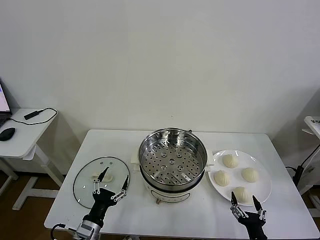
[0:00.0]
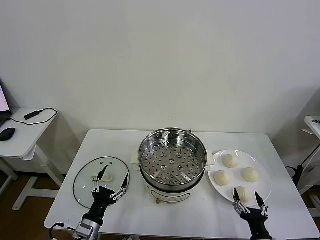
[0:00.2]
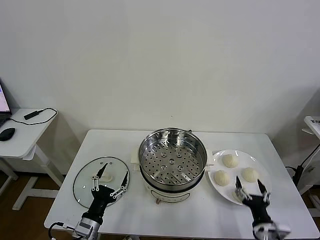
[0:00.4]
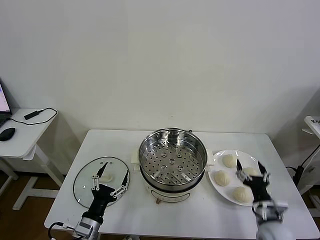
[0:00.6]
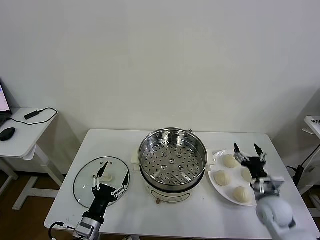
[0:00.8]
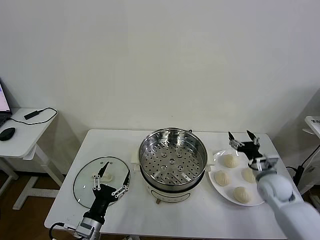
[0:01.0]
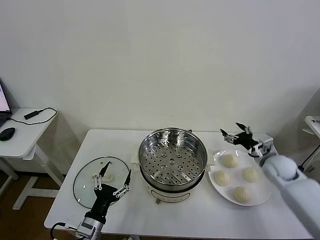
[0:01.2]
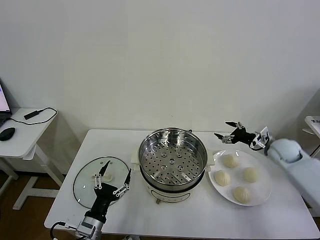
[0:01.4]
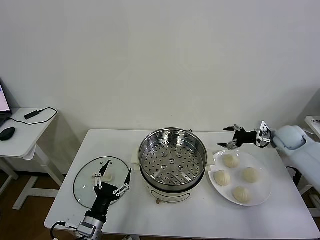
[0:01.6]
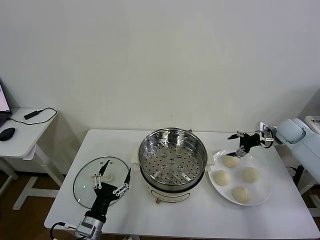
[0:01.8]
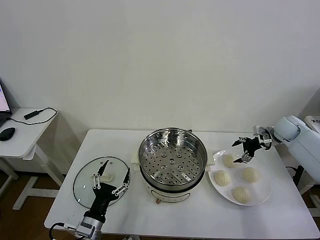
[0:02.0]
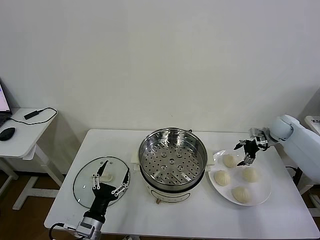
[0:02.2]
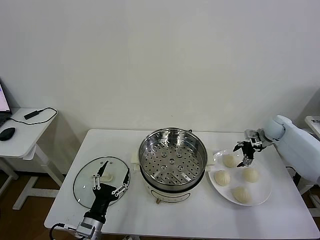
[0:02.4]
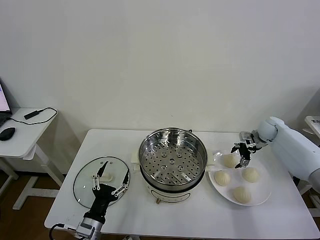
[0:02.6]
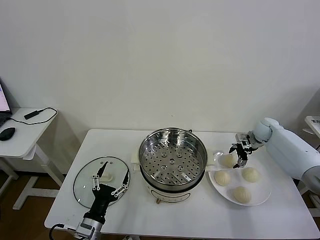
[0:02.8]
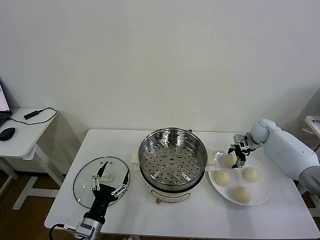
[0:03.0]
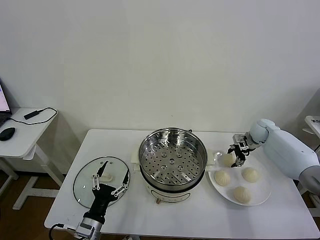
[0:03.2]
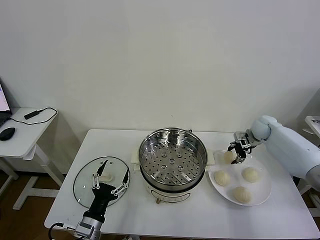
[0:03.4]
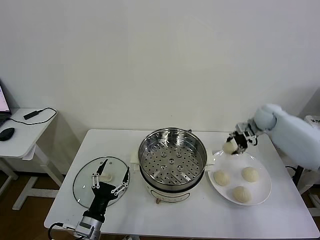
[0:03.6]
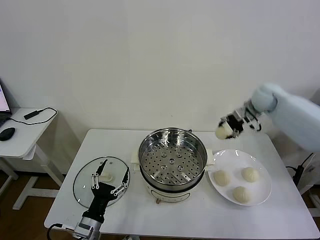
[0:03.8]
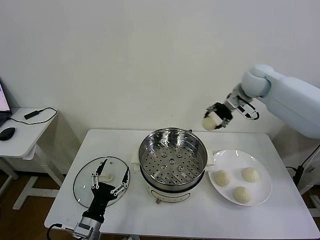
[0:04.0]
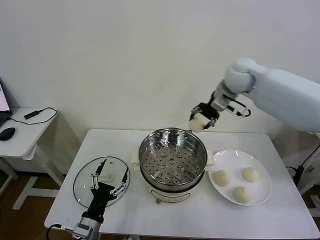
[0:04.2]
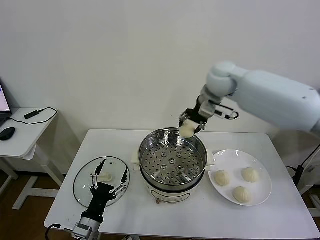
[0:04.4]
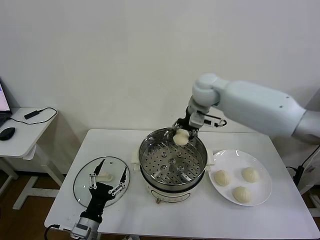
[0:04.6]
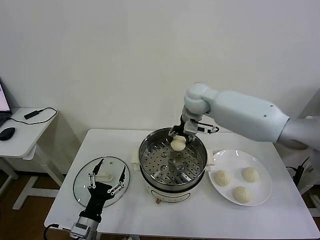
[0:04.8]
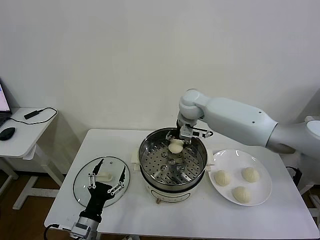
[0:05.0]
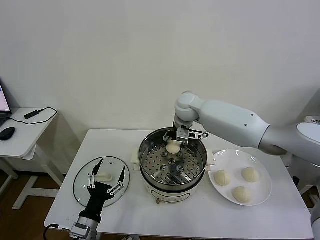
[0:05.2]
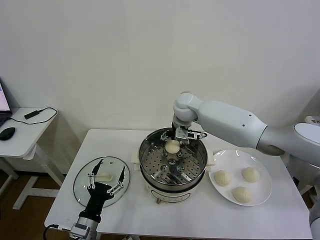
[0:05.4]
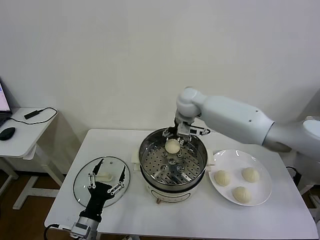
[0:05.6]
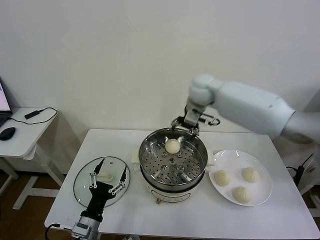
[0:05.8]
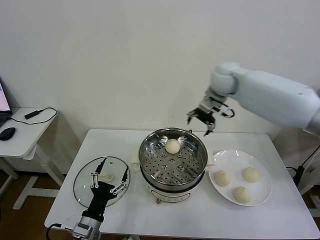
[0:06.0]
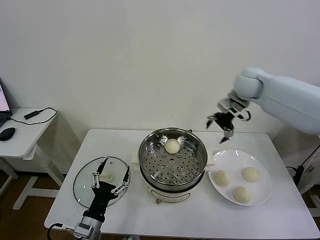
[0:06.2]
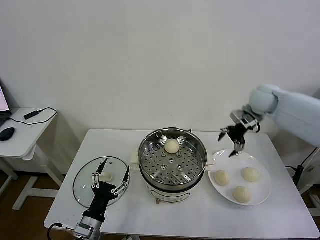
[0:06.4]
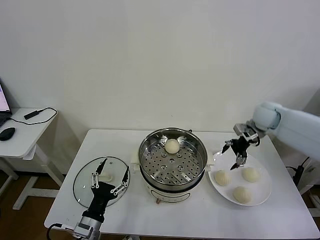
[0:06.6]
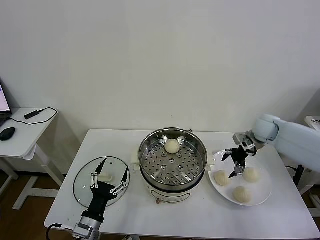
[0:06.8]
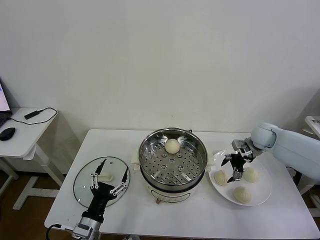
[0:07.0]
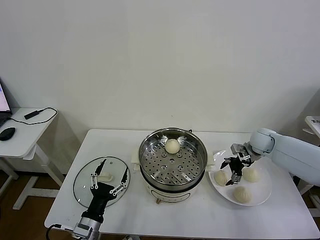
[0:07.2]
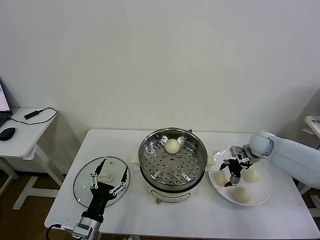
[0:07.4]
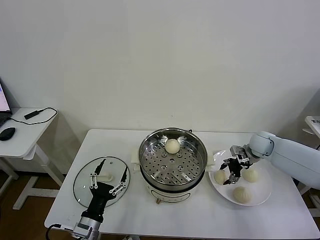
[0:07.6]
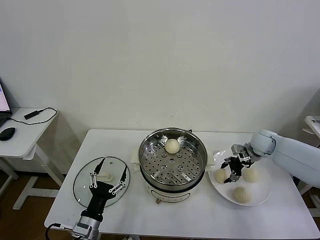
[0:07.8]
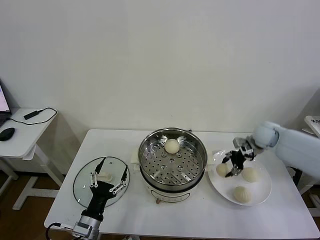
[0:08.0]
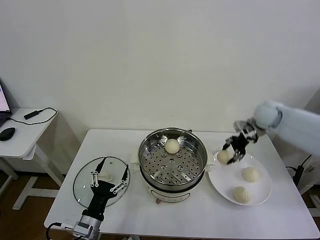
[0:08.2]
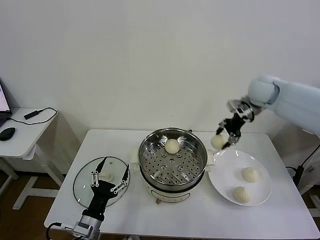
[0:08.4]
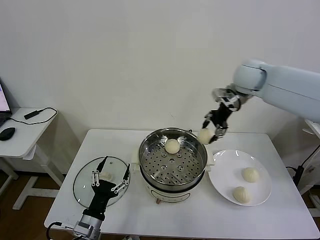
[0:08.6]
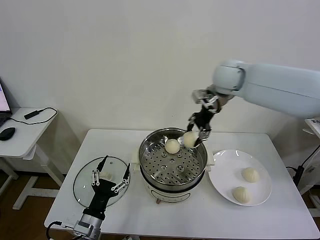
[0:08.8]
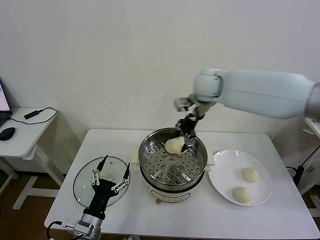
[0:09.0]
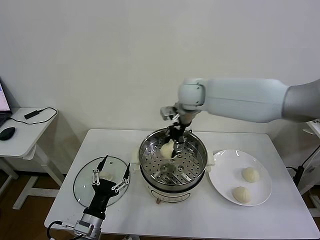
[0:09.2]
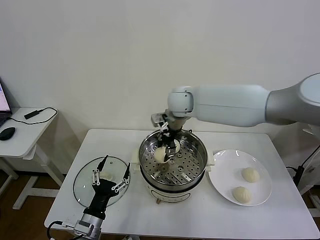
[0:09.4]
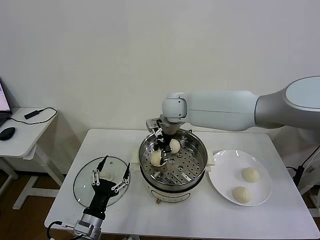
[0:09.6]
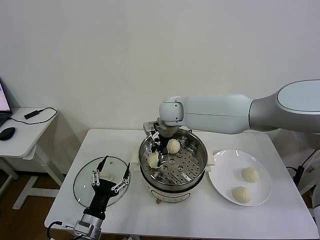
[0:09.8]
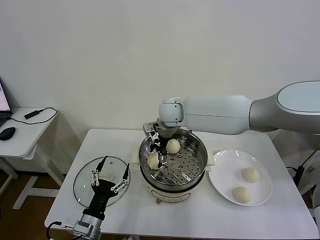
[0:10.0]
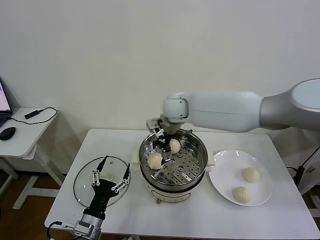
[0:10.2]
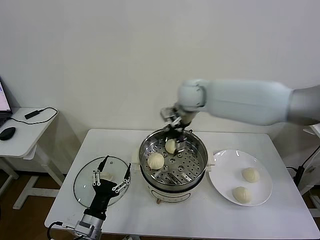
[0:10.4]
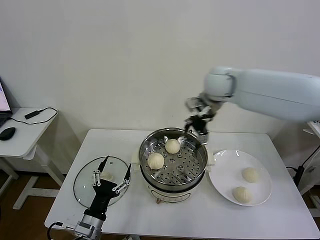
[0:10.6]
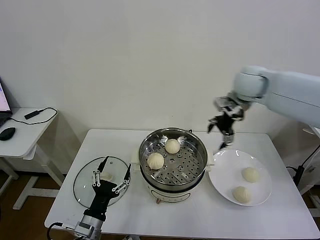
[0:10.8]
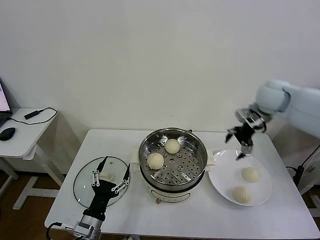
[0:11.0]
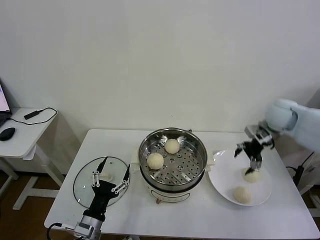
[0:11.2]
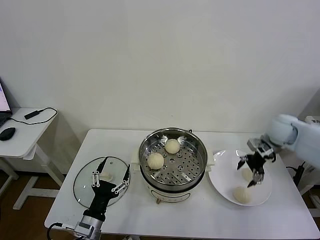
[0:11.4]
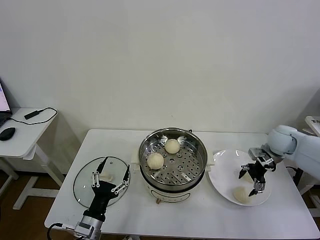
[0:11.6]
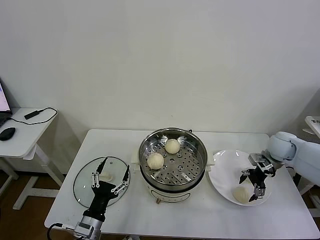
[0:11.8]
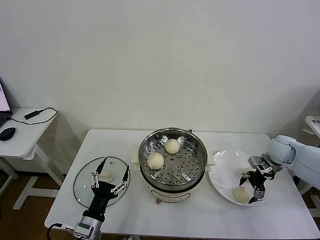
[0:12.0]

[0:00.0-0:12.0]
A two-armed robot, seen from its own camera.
Task of the whole recording: take steamed baozi put them in steamer then cover it.
Step, 0:00.0 to 0:03.2: Grasp the baozi in the plate with right gripper.
Step, 0:03.4 to 0:05.4: Place the baozi on the steamer with right gripper.
Step, 0:05.6 to 0:07.8: Grasp the baozi in the plate with right gripper.
Step, 0:08.0 to 0:10.0: Place the baozi on the steamer with right gripper.
0:01.6 to 0:03.0: The right gripper moves forward, downward and to the left, approximately 10 cm.
0:03.0 to 0:04.4: The right gripper moves to the left and upward, approximately 35 cm, and closes its fingers.
0:04.4 to 0:06.0: The right gripper travels to the right by about 10 cm, and opens up.
0:06.0 to 0:07.6: The right gripper heads downward and to the right, covering some 30 cm, and closes up.
0:07.6 to 0:09.0: The right gripper travels to the left and upward by some 35 cm.
0:09.0 to 0:10.4: The right gripper goes to the left and returns, roughly 10 cm each way, and opens its fingers.
0:10.4 to 0:12.0: The right gripper goes roughly 35 cm to the right and downward.

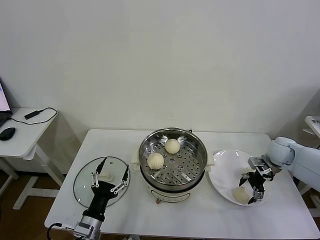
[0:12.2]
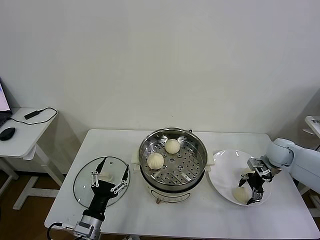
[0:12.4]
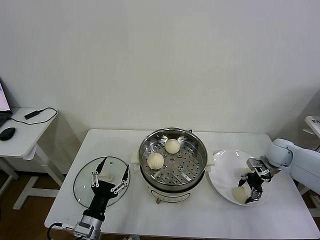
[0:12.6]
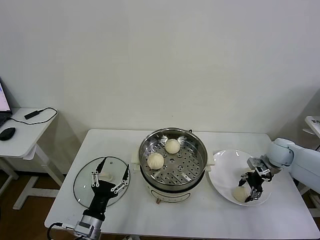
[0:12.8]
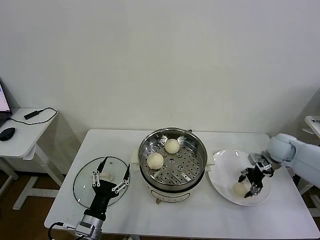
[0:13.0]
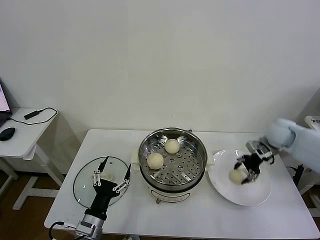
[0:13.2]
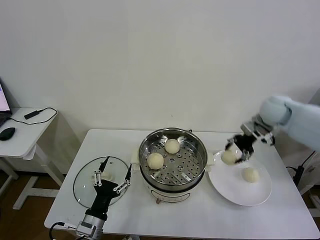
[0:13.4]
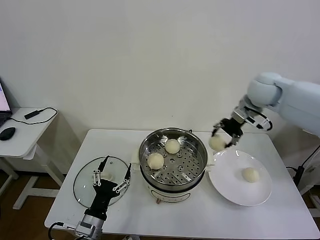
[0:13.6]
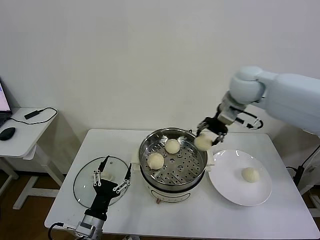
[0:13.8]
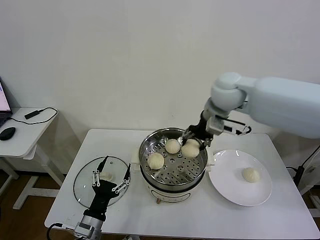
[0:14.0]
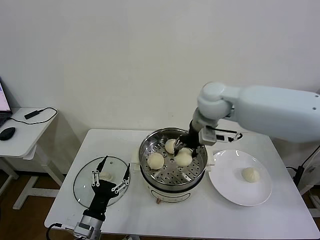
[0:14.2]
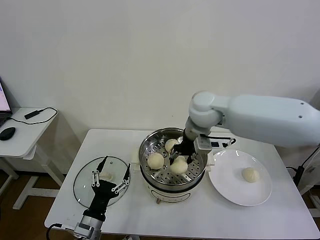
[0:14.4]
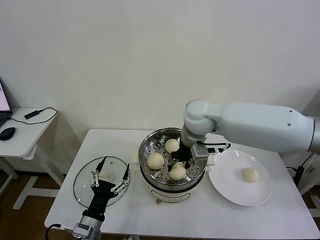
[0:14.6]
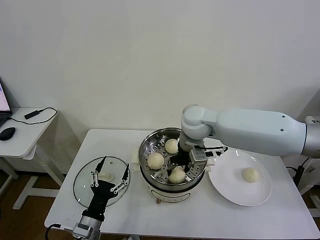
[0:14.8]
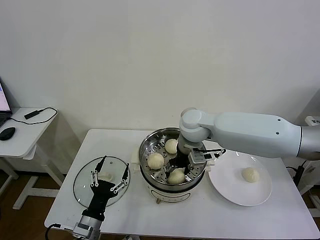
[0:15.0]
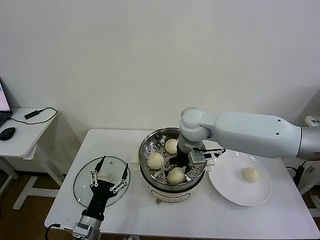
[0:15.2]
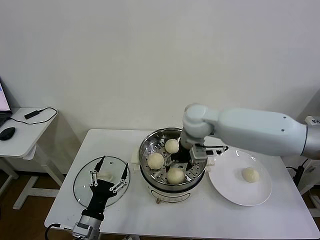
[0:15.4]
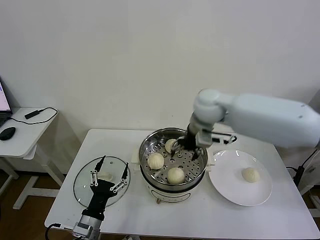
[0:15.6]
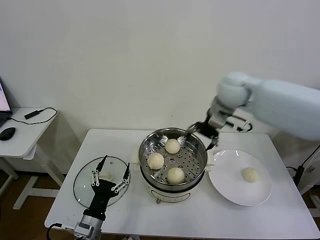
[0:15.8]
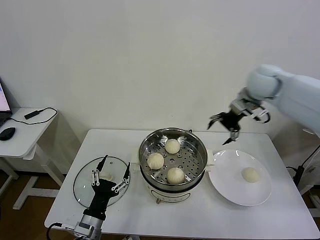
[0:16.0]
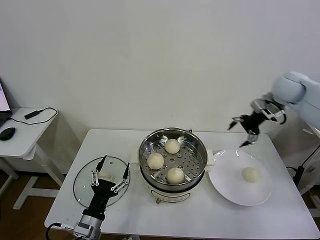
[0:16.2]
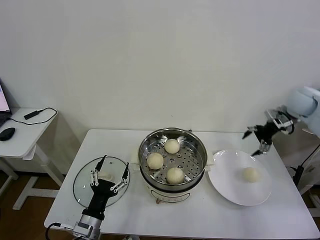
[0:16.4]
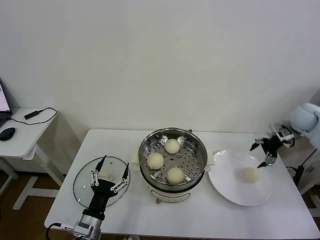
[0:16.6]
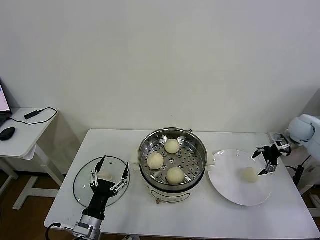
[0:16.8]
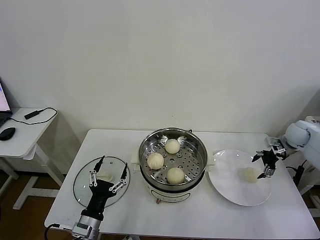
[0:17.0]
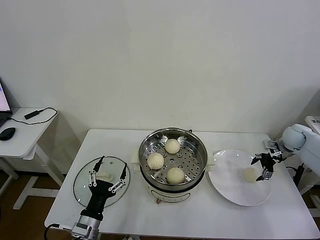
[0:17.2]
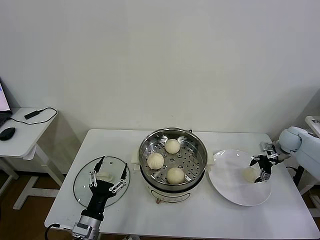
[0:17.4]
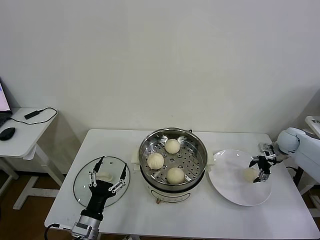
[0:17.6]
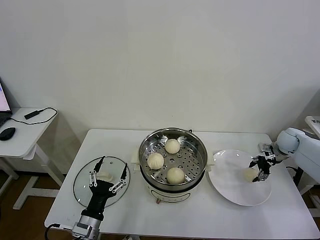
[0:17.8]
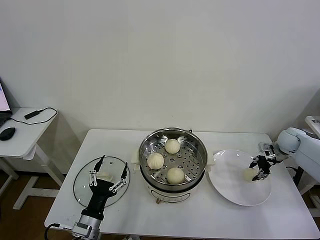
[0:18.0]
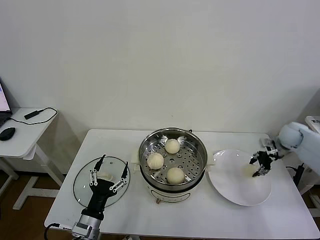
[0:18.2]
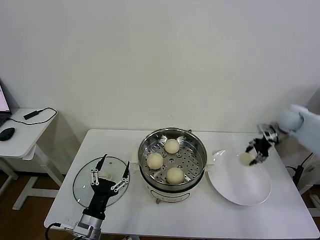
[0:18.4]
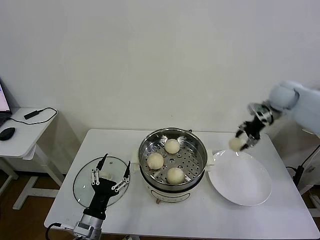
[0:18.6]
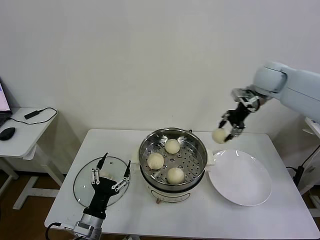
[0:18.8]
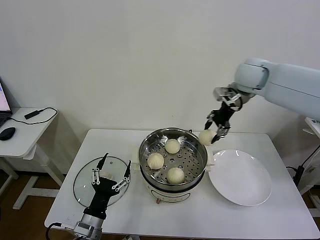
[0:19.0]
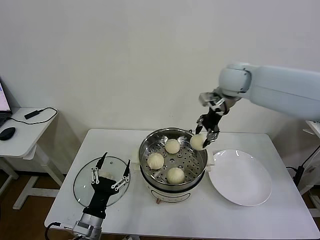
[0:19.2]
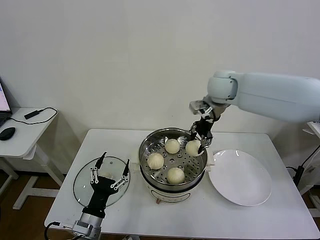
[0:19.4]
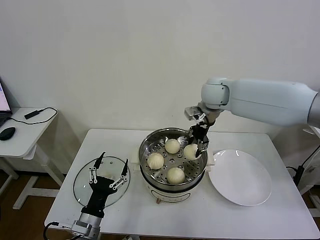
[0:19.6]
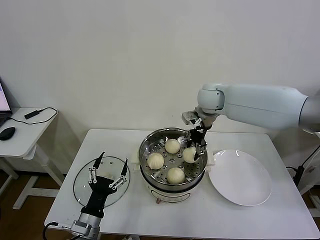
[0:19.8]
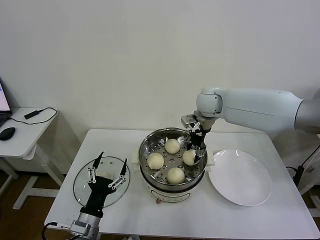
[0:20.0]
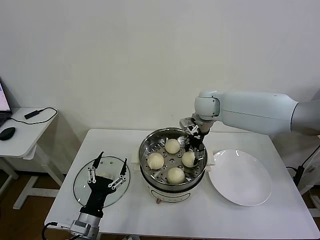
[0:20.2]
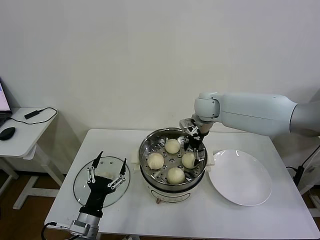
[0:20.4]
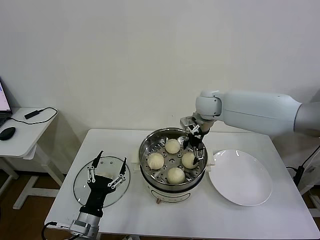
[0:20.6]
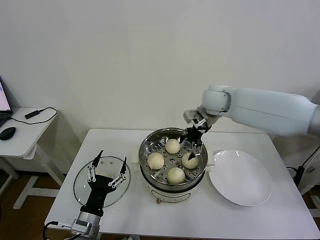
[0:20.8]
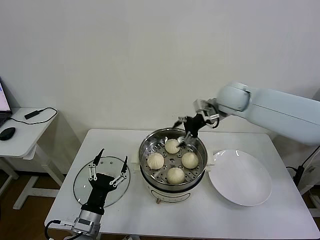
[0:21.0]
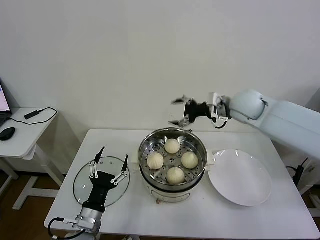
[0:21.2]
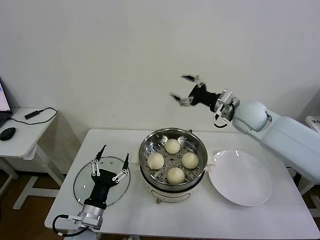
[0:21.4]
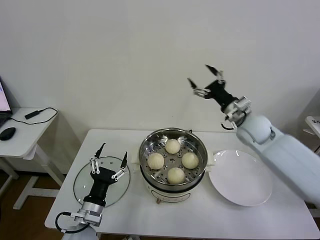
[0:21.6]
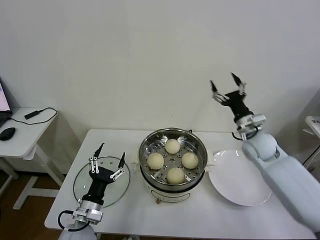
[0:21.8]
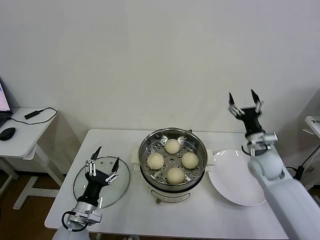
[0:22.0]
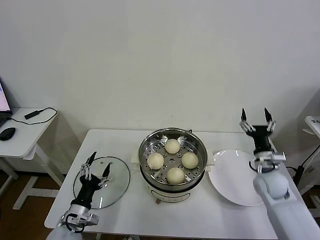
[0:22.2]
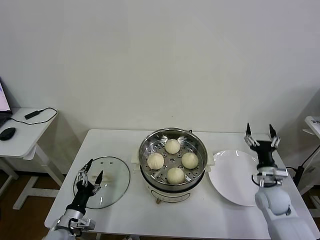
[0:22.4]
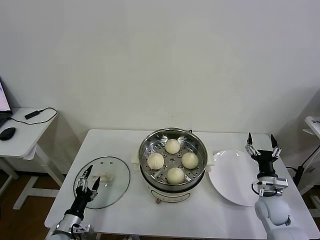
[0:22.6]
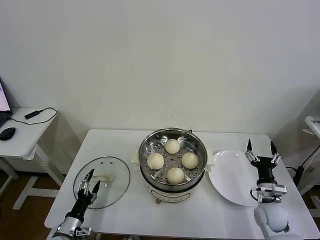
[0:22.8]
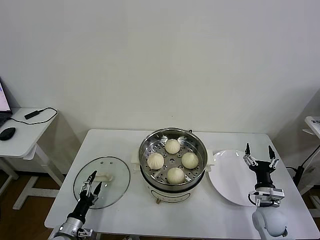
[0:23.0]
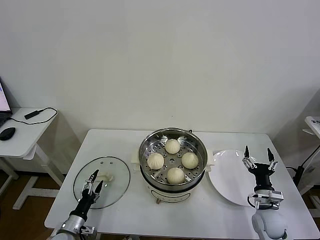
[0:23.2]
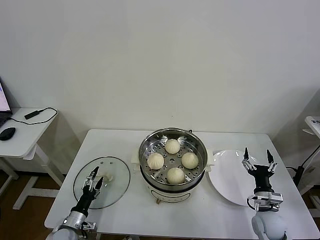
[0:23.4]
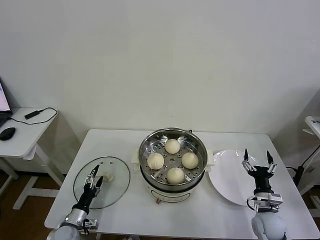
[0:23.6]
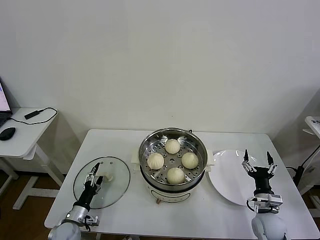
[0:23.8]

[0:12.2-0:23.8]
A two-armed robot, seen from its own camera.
Task of the whole recording: take steamed baozi put them in steamer then cover it.
Step, 0:13.0 to 0:15.2: Place the baozi on the steamer with right gripper.
Step, 0:15.6 to 0:17.8: Grasp the baozi in the plate with right gripper.
Step, 0:18.0 to 0:20.4: Place the baozi on the steamer with right gripper.
0:12.2 to 0:13.6: The right gripper heads upward and to the left, covering about 25 cm, and closes.
0:13.6 to 0:15.0: The right gripper moves to the left and downward, approximately 20 cm, and opens.
0:15.0 to 0:16.6: The right gripper heads to the right, covering some 40 cm, and opens.
0:16.6 to 0:18.0: The right gripper heads downward, covering roughly 10 cm, and closes its fingers.
0:18.0 to 0:19.4: The right gripper goes approximately 40 cm to the left and upward.
0:19.4 to 0:21.0: The right gripper moves some 10 cm downward and comes back, and opens its fingers.
0:21.0 to 0:22.4: The right gripper is displaced downward, backward and to the right by about 35 cm. Meanwhile the left gripper goes approximately 10 cm to the left and downward.
0:22.4 to 0:23.8: The right gripper heads backward and downward, covering approximately 10 cm. The left gripper goes roughly 10 cm downward.
